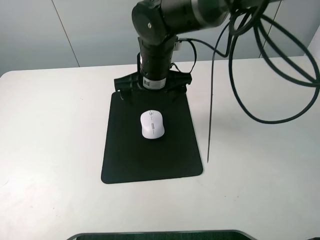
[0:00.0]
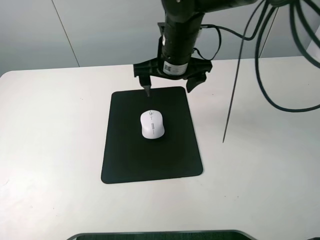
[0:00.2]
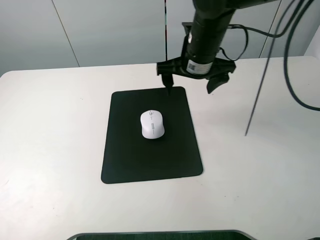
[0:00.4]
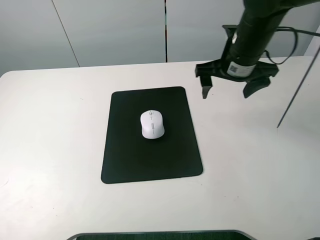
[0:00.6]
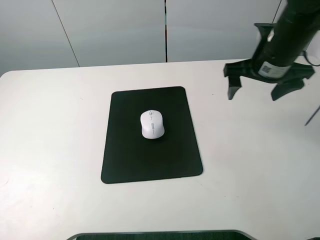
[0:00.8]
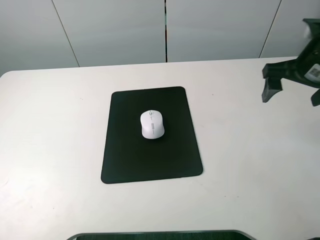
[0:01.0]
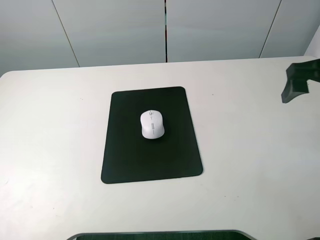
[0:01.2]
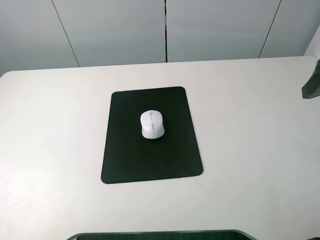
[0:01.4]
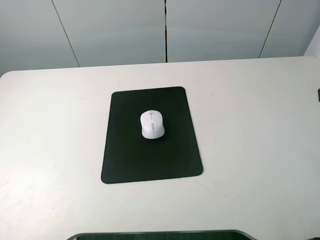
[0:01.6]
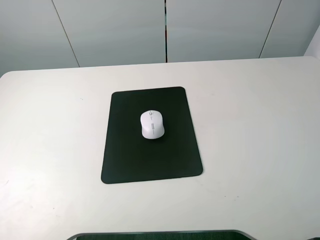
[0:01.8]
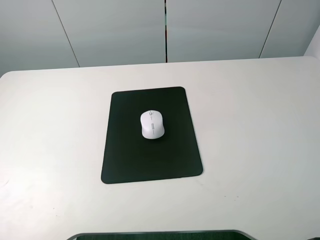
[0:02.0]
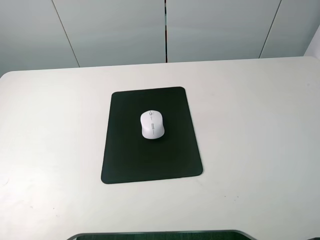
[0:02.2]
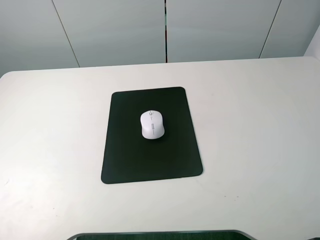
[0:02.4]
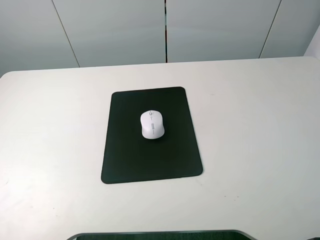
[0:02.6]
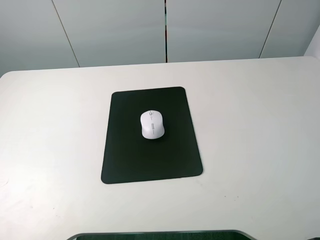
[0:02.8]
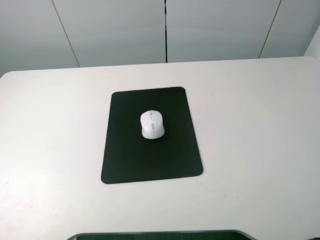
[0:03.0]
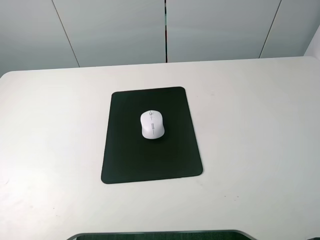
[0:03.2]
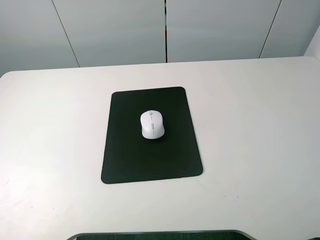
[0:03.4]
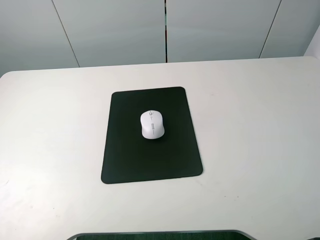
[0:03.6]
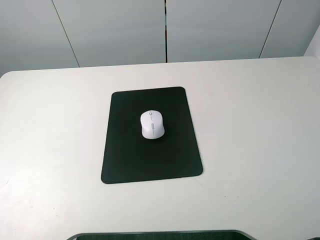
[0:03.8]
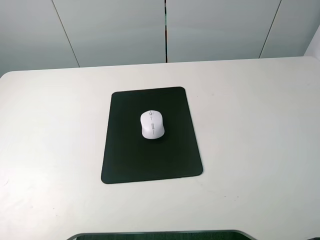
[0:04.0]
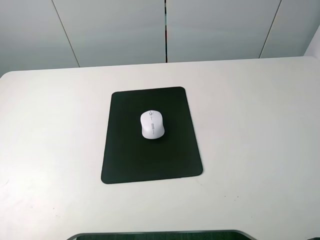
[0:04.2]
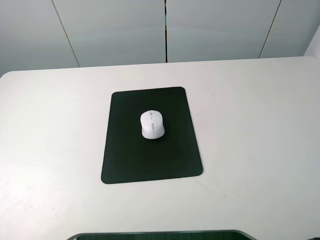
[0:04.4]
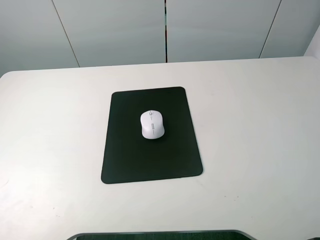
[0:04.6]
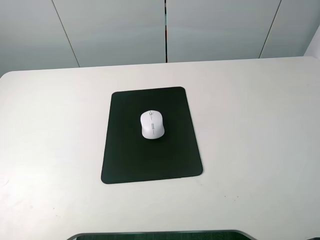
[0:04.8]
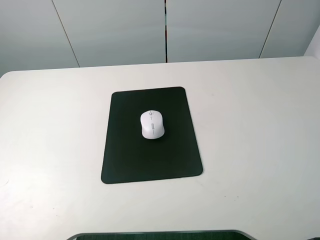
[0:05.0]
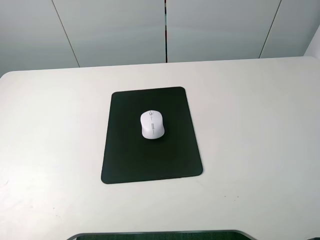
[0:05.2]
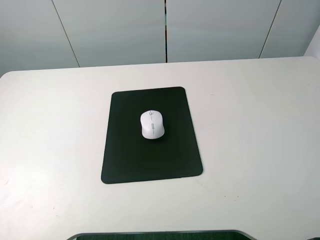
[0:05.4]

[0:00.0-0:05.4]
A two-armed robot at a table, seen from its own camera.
0:00.0 to 0:01.4: The right gripper heads to the right and backward, covering some 35 cm.
0:02.8 to 0:05.4: Both grippers stay about where they are.
